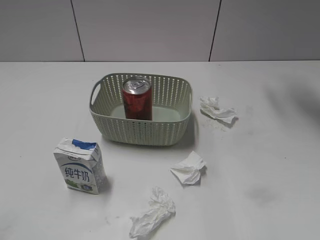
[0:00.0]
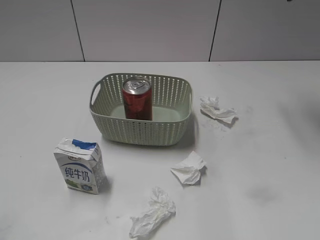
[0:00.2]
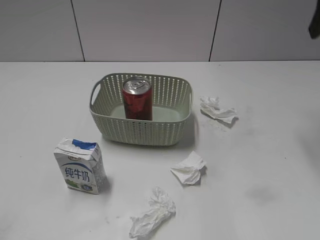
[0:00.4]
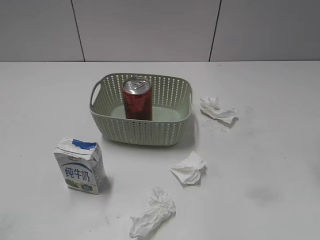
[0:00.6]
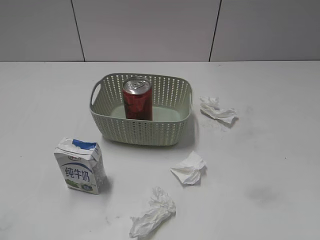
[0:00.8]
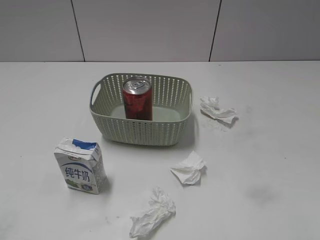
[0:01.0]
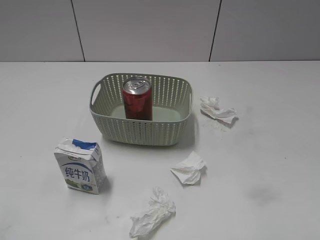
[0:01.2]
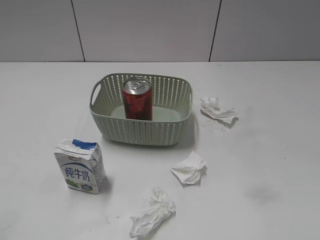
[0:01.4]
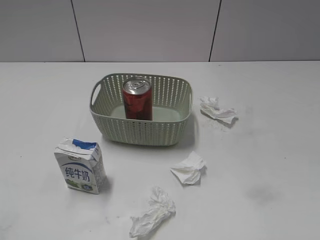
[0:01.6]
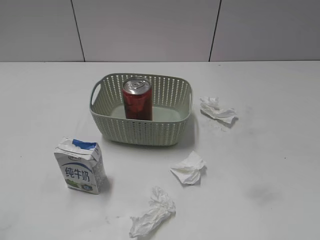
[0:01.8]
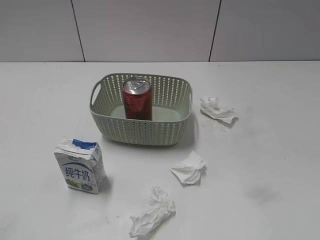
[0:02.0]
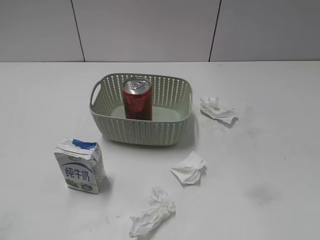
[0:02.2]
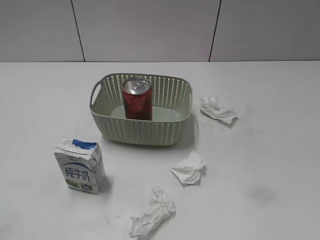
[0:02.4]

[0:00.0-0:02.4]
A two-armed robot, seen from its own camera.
0:00.0 to 0:01.2: The right gripper is displaced backward by some 35 cm.
